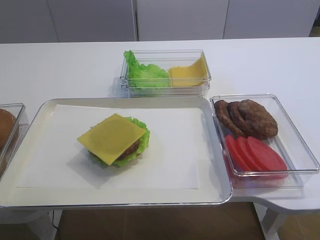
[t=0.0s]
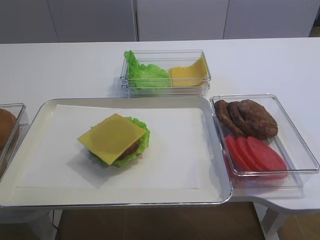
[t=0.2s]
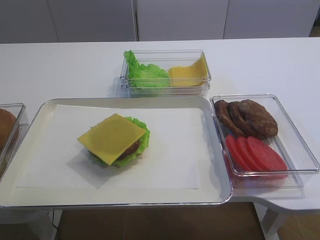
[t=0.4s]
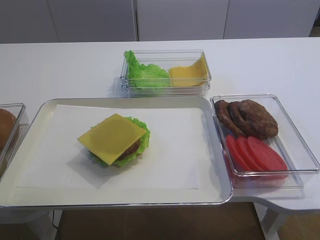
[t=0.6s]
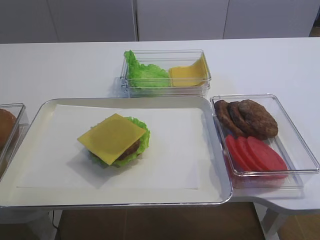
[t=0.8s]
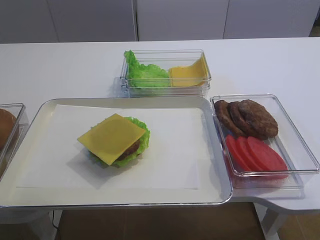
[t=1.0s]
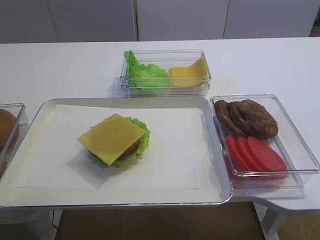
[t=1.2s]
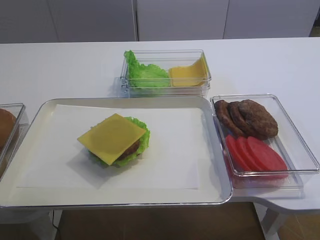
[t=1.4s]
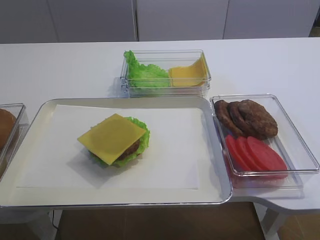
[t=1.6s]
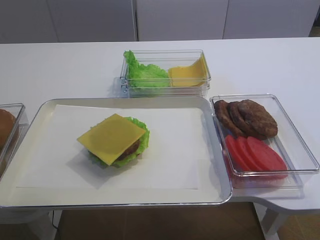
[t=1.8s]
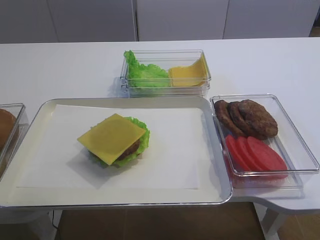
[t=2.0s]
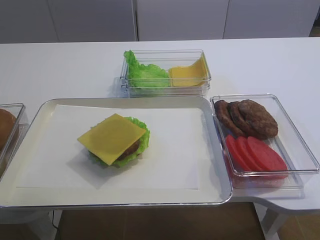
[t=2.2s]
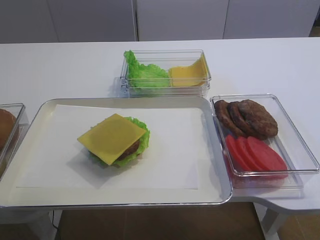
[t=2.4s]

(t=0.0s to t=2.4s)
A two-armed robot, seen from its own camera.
t=1.2s - t=2.4s: Both grippers stay about where they are.
